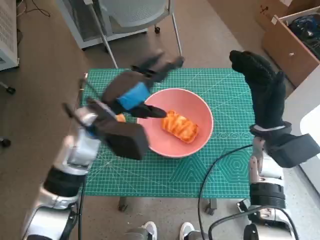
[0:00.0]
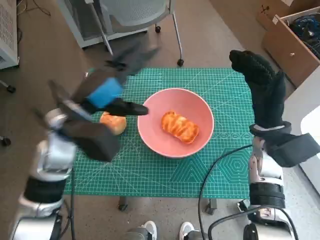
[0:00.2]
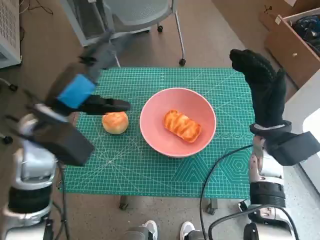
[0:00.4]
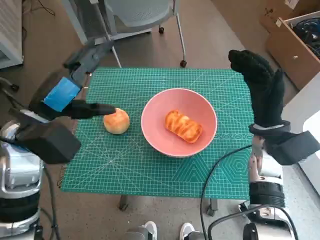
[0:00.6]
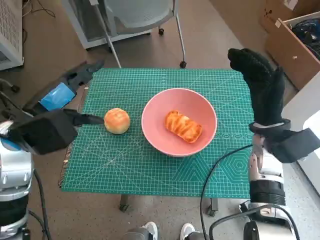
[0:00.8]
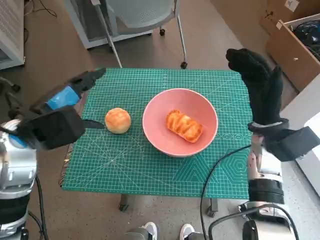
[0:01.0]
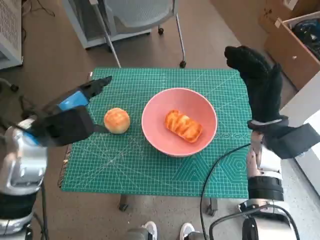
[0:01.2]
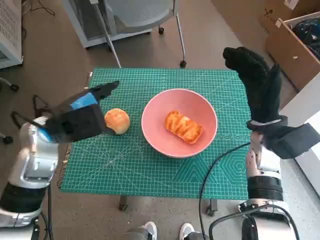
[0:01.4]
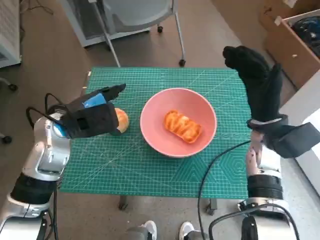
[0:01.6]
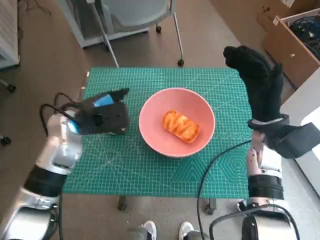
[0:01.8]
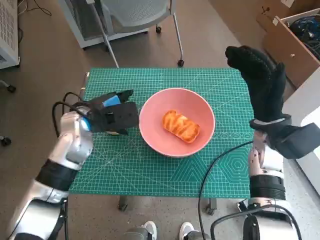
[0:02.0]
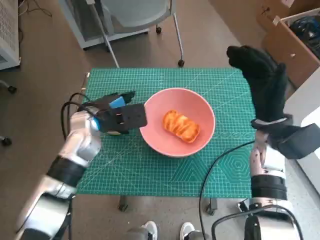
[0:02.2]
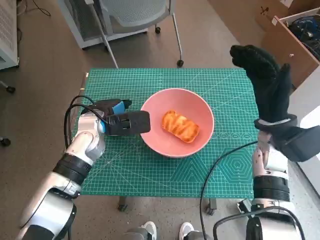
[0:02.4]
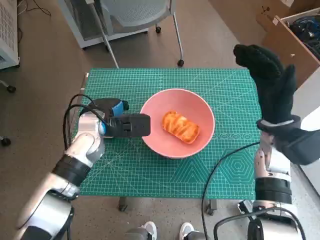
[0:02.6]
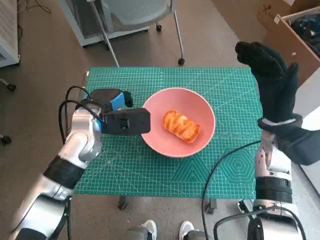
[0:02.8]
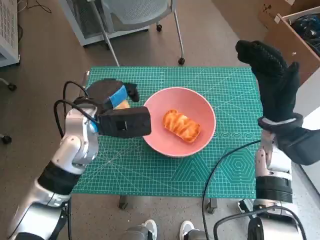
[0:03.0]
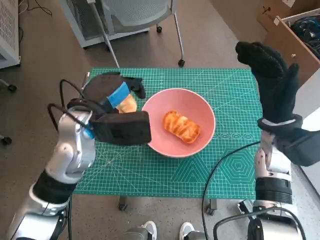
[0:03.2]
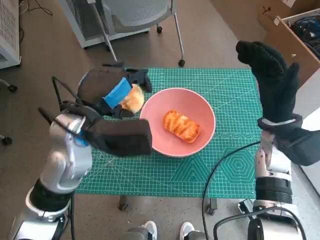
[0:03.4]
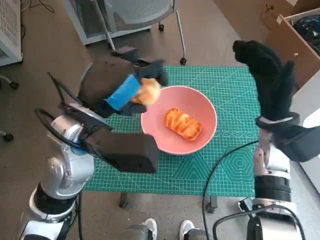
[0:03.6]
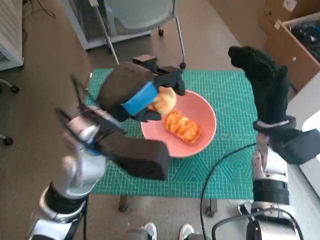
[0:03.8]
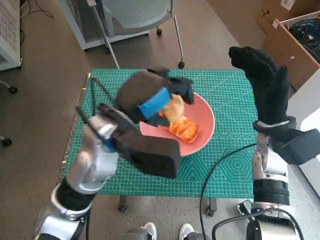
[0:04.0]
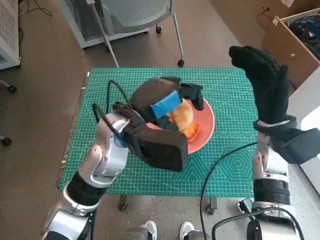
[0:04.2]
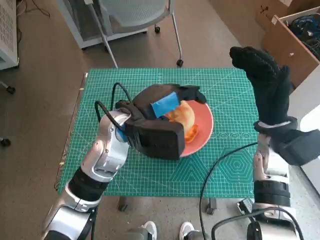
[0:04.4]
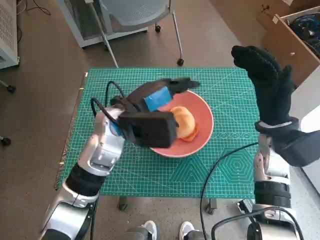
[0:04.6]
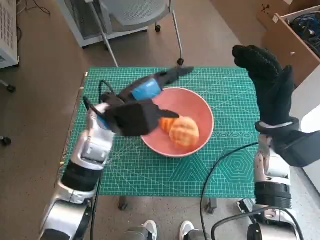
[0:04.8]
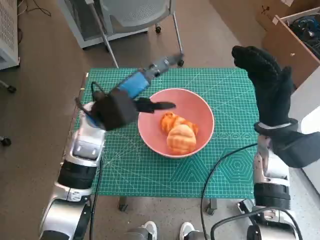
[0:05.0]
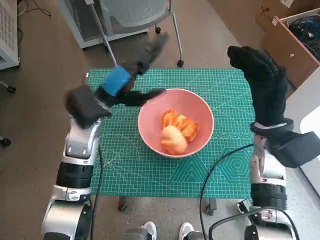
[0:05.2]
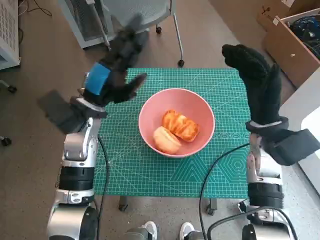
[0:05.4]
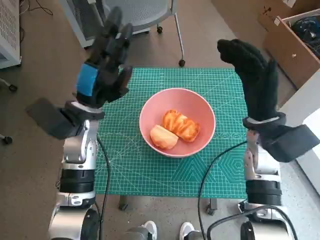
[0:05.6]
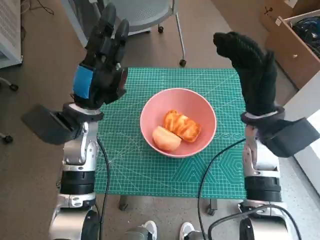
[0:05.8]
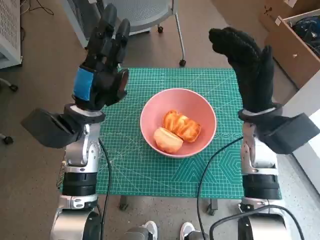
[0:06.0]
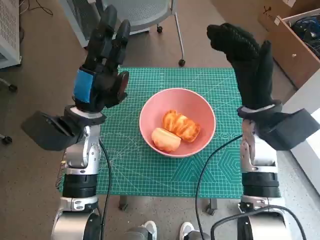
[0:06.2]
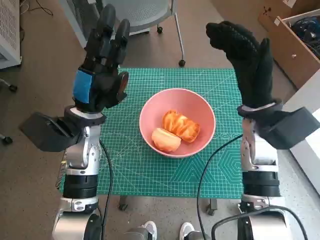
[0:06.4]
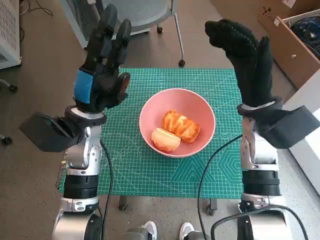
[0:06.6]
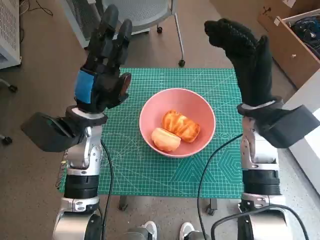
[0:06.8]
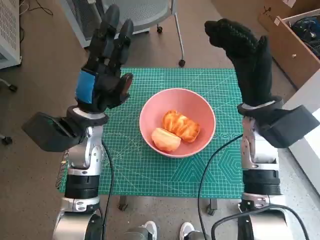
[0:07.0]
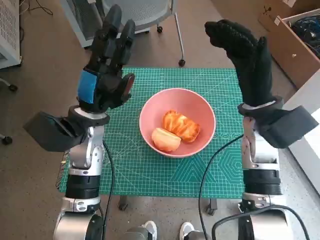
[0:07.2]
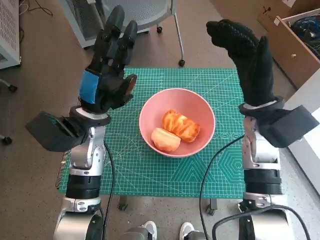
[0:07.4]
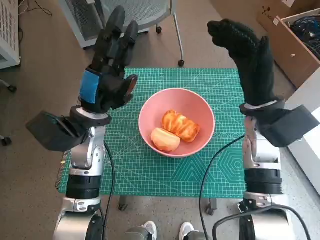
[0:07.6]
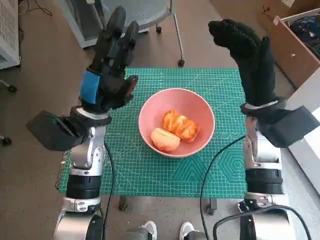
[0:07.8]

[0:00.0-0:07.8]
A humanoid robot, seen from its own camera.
Step, 0:00.0 to 0:02.4: Grasp the round bread with left hand.
Step, 0:02.6 to 0:04.8: Place the round bread in pink bowl with left hand.
0:00.0 to 0:01.6: The left hand is displaced to the left by some 10 cm.
0:01.6 to 0:03.2: The left hand travels to the right by about 5 cm.
0:03.2 to 0:04.6: The left hand travels to the right by approximately 5 cm.
0:04.6 to 0:06.2: The left hand heads to the left, covering some 5 cm, while the right hand moves roughly 5 cm.
0:06.2 to 0:07.8: Both hands stay put.
